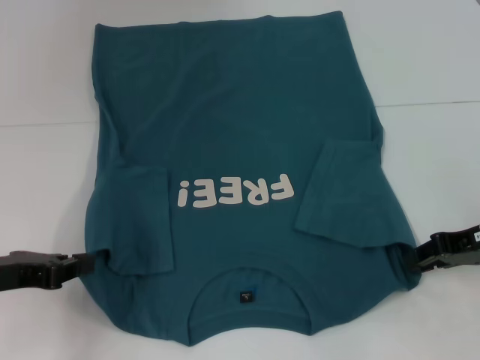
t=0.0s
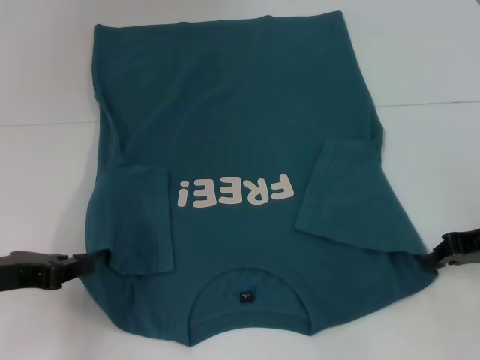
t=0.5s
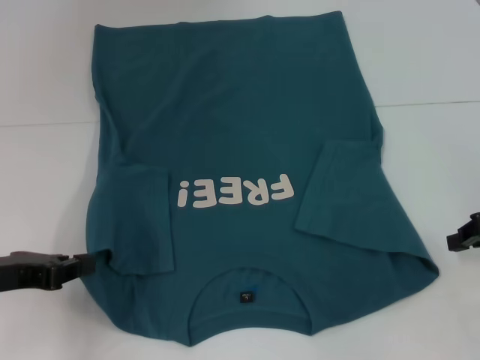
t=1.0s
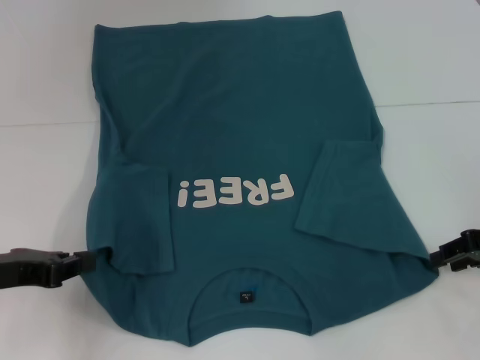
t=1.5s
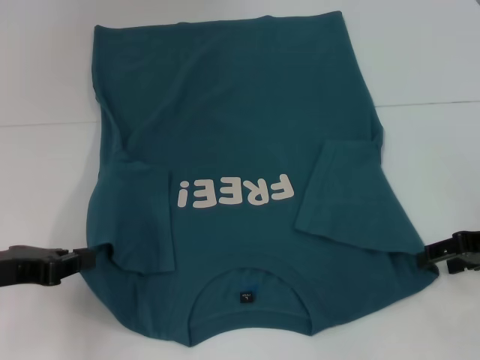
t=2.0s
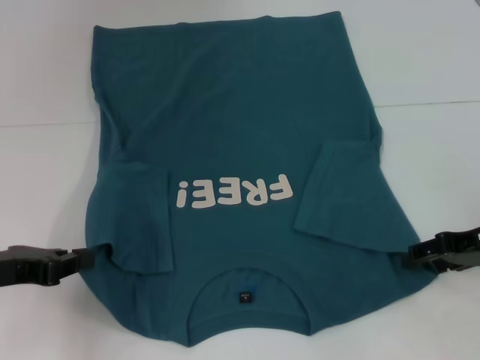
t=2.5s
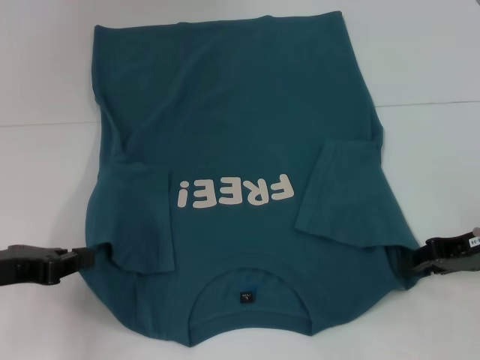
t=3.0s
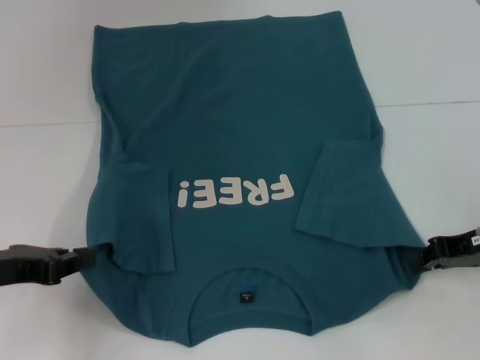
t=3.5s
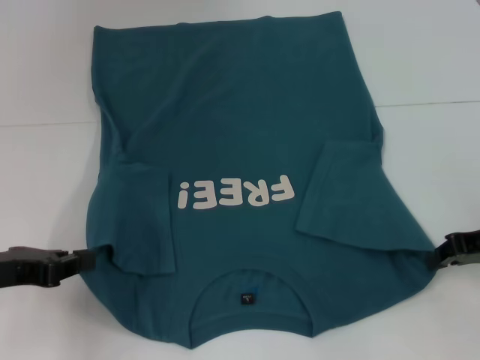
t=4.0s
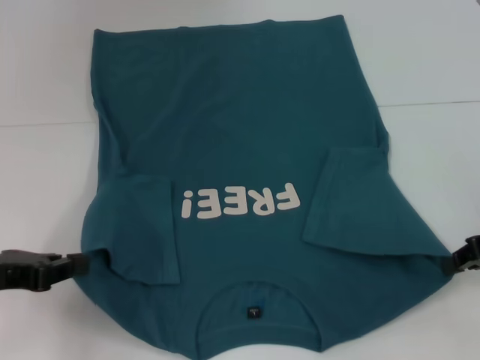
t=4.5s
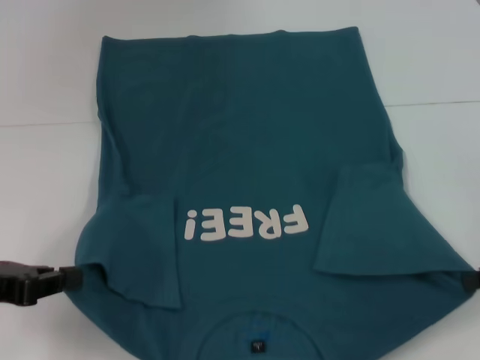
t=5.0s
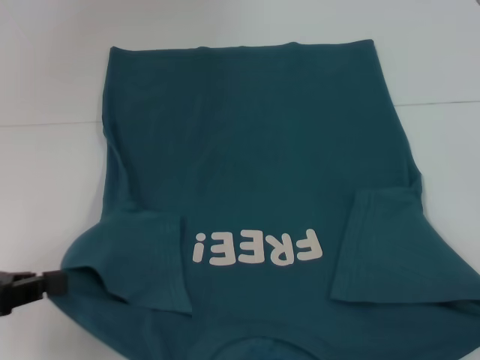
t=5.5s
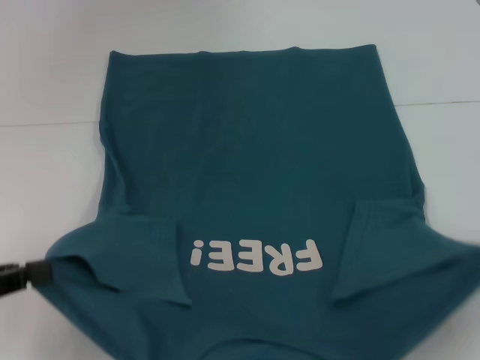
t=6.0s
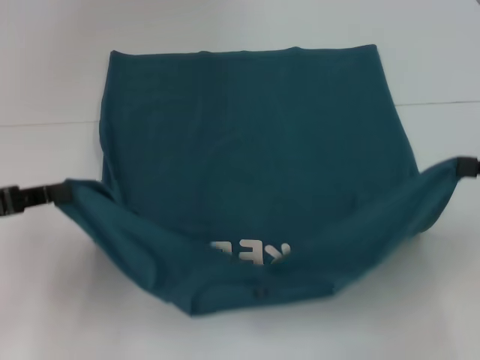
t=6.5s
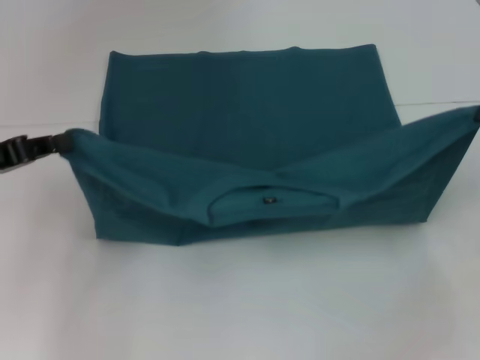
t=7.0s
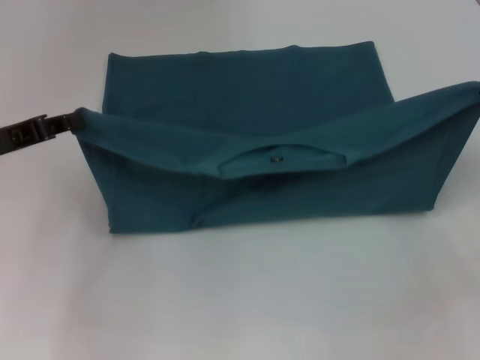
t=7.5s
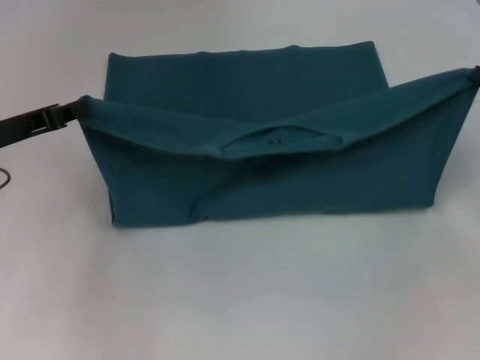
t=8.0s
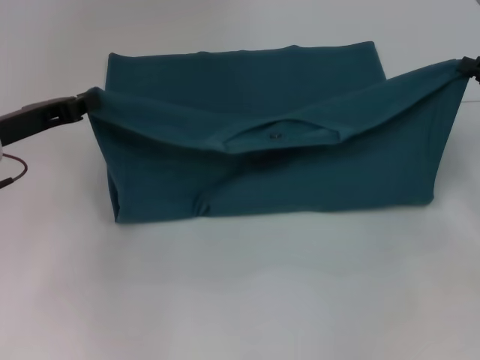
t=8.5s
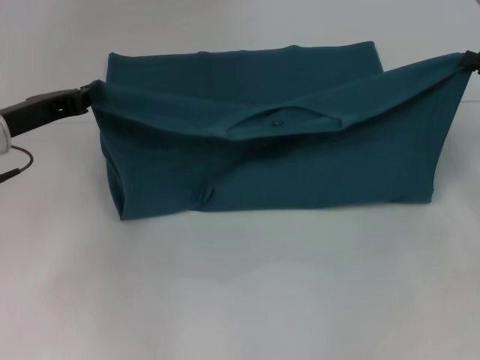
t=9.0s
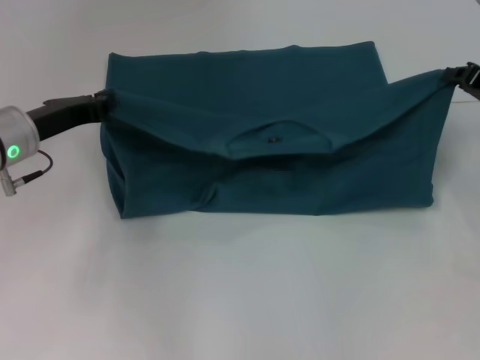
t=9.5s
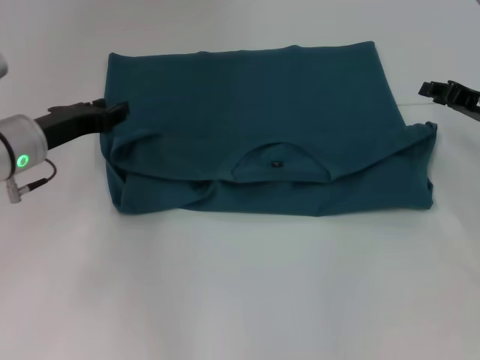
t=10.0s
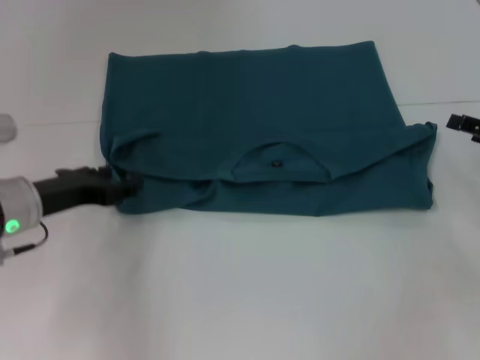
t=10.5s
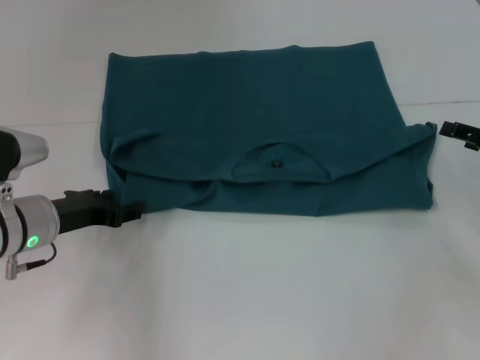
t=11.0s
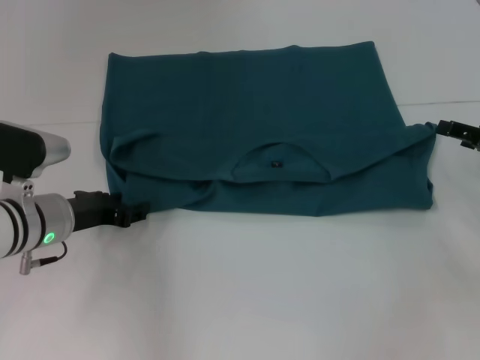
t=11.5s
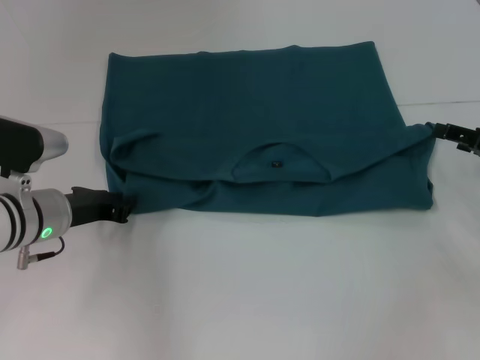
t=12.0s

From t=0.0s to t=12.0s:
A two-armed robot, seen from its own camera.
Step, from t=0.0s to t=4.0s: Grab the bottom right corner with your right hand.
Step, from t=4.5s to t=9.5s: Fold the clothes to the left.
Step, from t=4.5s to t=9.5s: Fold the clothes to the right.
From t=0.0s to t=2.0s: The right gripper closes and opens again.
From t=2.0s to t=4.0s: The right gripper closes its fingers.
From t=4.0s to t=6.0s: The right gripper is displaced backward and to the right by roughly 10 cm. Meanwhile the left gripper shifts about 5 cm backward.
From t=6.0s to t=8.0s: Both grippers travel together forward, approximately 15 cm.
From t=8.0s to t=10.0s: The right gripper shifts by roughly 5 cm. Meanwhile the left gripper travels to the right by about 5 cm.
From t=10.0s to t=12.0s: The left gripper shifts roughly 5 cm downward. Meanwhile the right gripper heads backward, covering some 5 cm, and opens up.

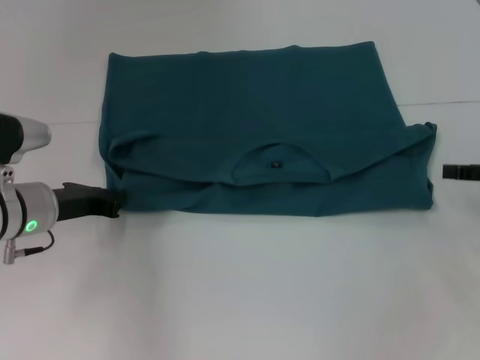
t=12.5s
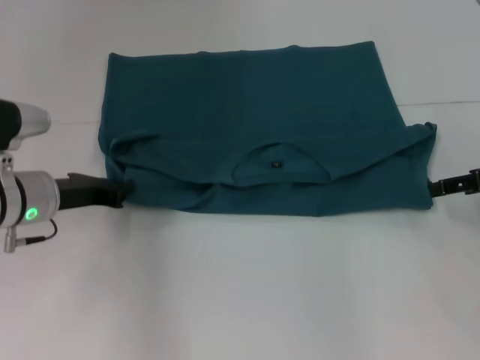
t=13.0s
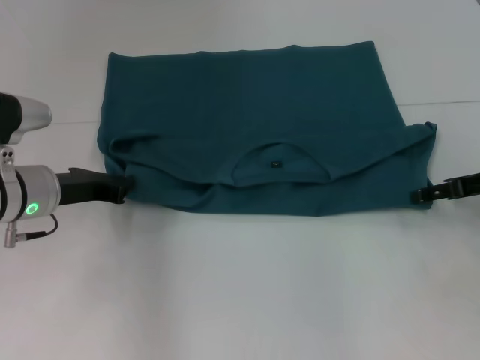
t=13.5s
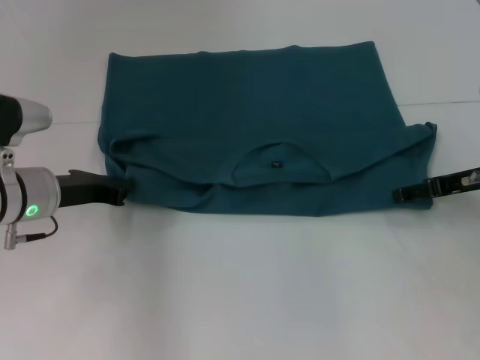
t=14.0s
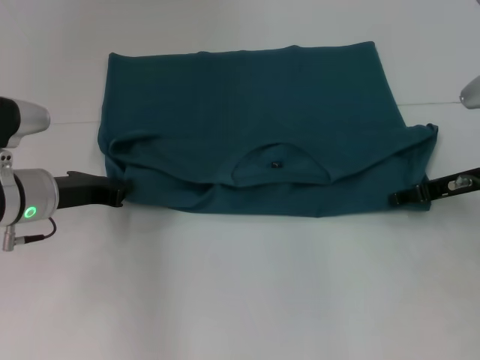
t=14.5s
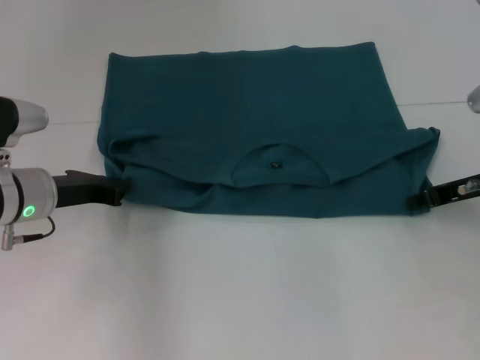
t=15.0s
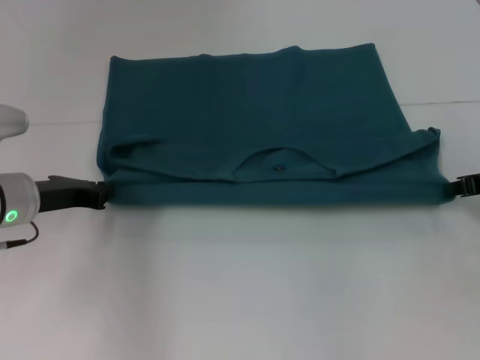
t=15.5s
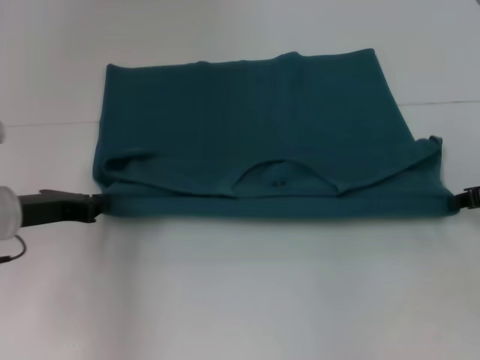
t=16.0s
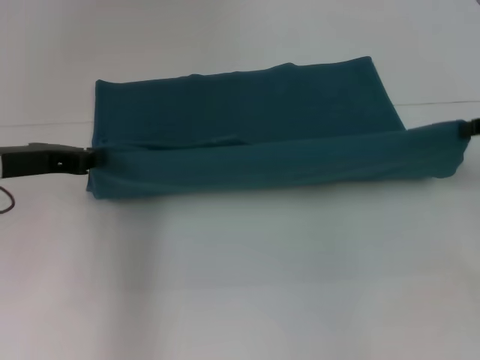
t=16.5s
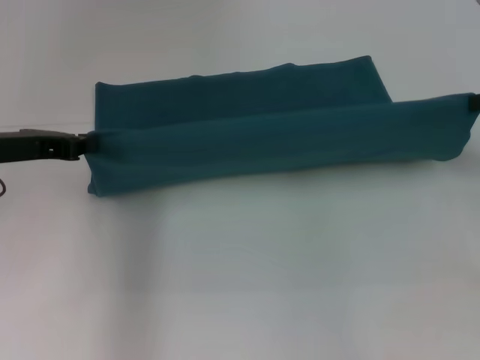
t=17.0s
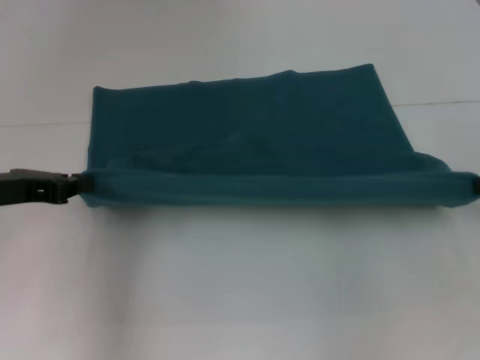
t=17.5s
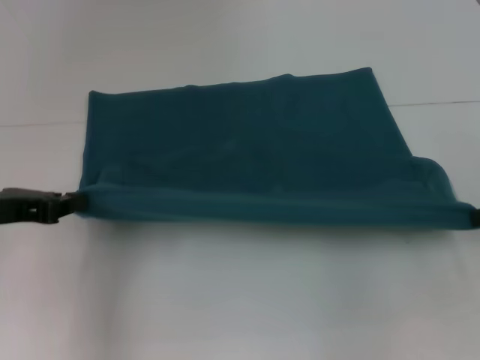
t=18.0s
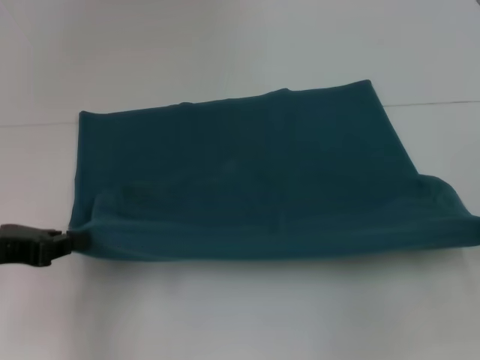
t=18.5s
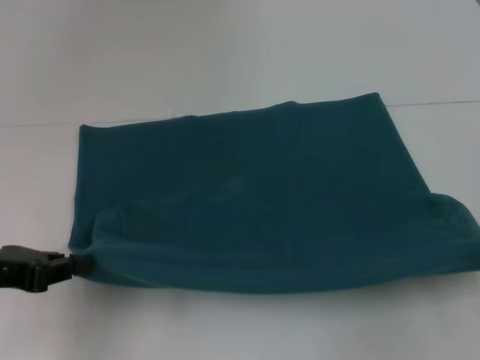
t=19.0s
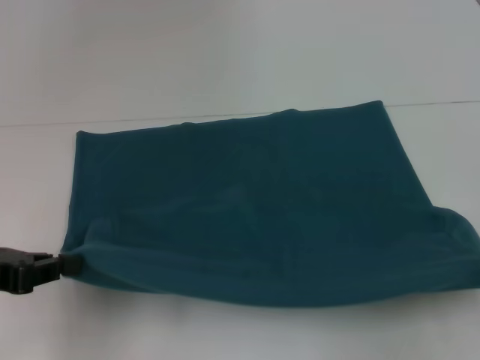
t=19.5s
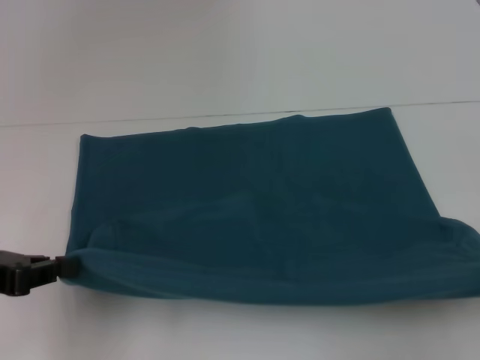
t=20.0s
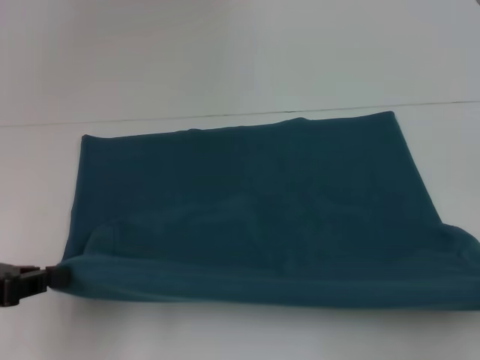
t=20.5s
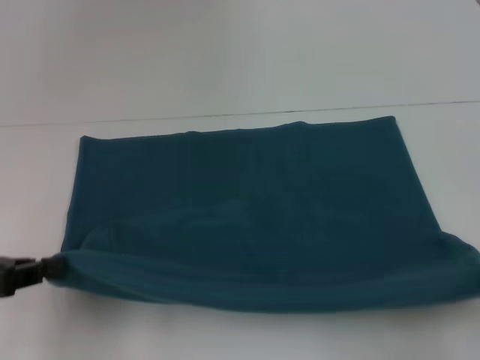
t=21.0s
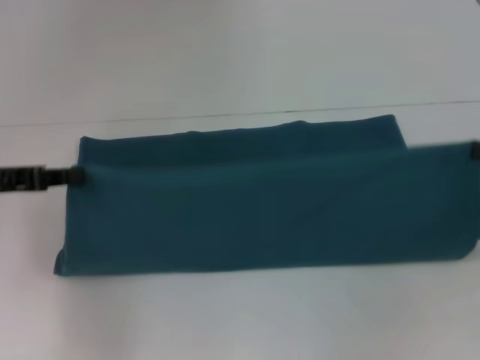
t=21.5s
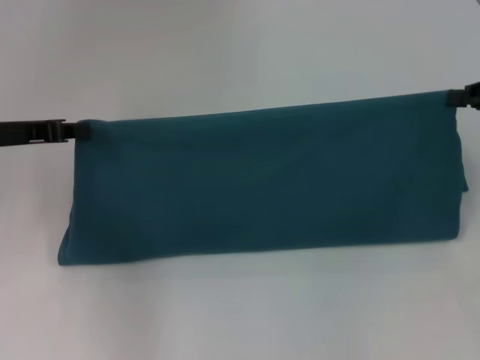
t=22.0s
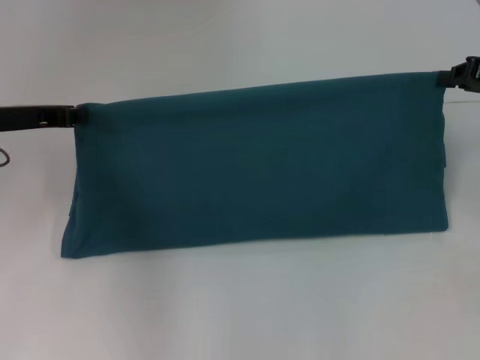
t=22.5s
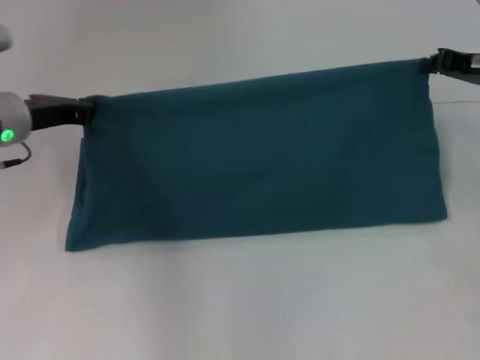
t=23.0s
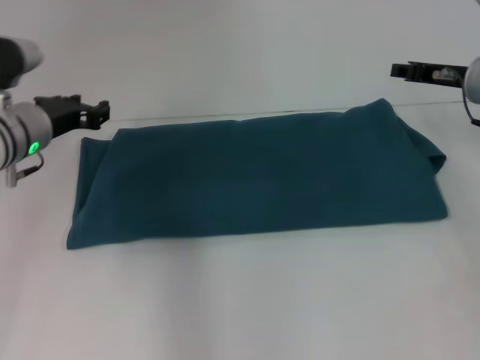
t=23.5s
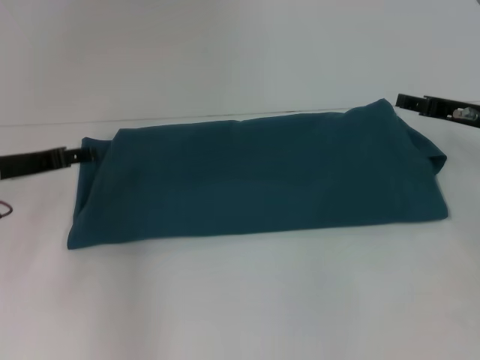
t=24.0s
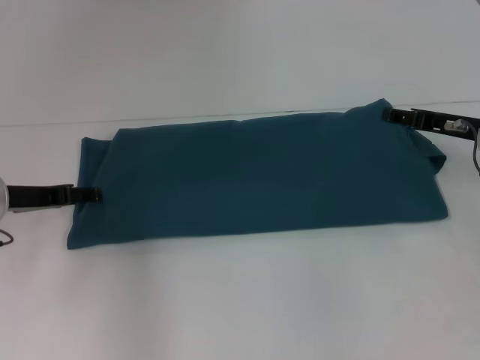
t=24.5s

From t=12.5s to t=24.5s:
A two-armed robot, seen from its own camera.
Step, from t=12.5s to t=20.5s: Pull the clothes with your left hand.
Step, from t=12.5s to t=20.5s: Pull the clothes with your right hand.
Step, from t=21.0s to t=23.0s: Fold the clothes to the left.
Step, from t=21.0s to t=23.0s: Fold the clothes to the right.
From t=12.5s to t=14.5s: The right gripper goes about 10 cm to the left and forward.
From t=14.5s to t=16.5s: The left gripper is displaced upward by approximately 5 cm. Meanwhile the right gripper travels upward and to the right by approximately 10 cm, and closes its fingers.
From t=16.5s to t=18.5s: The grippers both shift backward by about 10 cm.
From t=18.5s to t=20.5s: The right gripper goes about 5 cm backward.
From t=20.5s to t=22.5s: Both grippers move forward, about 20 cm.
From t=22.5s to t=24.5s: The right gripper heads downward and to the left, covering some 10 cm, and opens up; the left gripper goes about 5 cm downward, and opens its fingers.

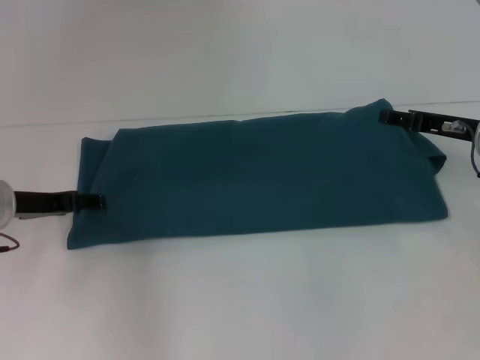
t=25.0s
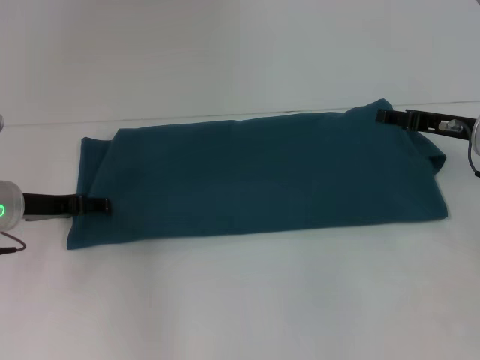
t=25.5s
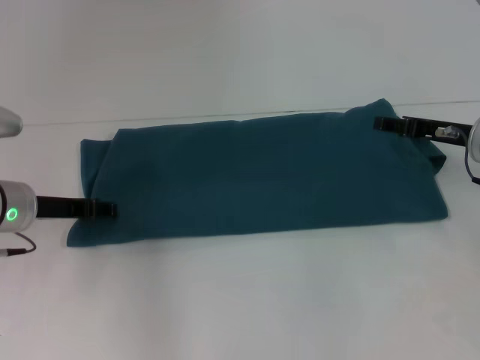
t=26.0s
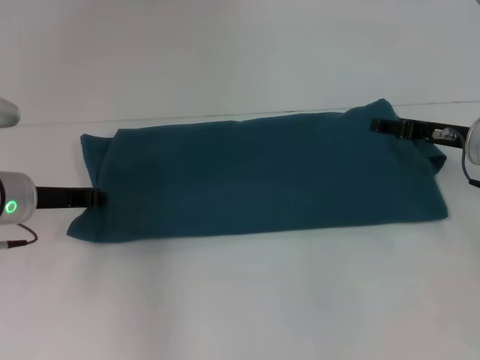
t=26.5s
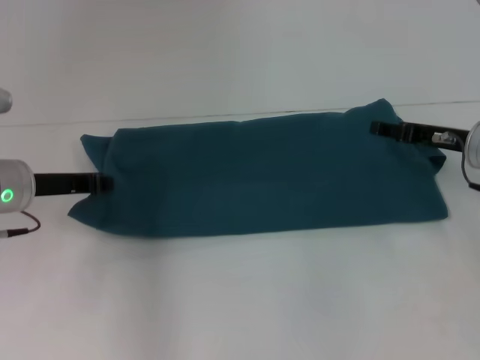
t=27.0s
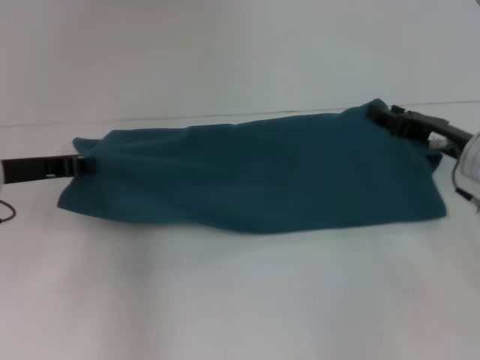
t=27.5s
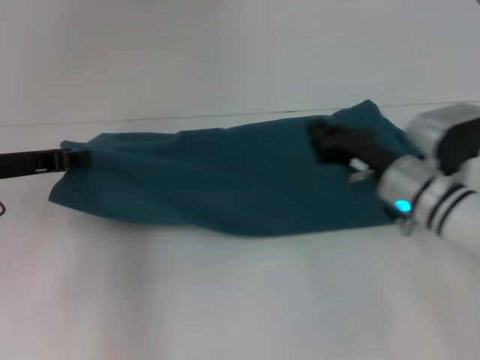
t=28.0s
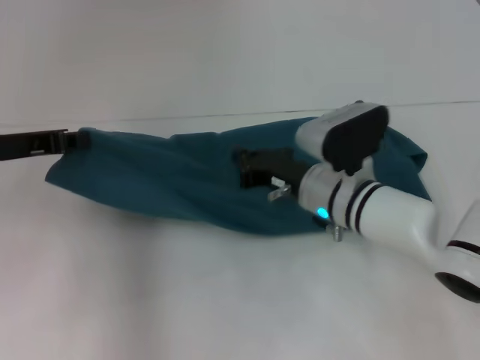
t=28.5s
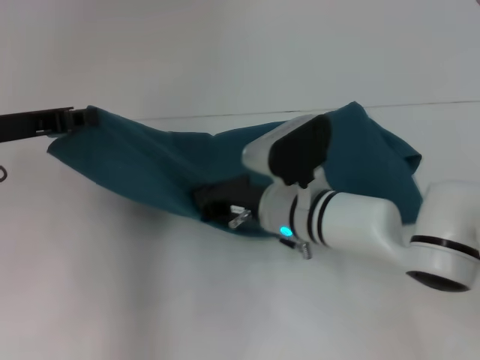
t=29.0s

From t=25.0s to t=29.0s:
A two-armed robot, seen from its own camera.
From t=25.0s to t=27.0s: The left gripper closes.
From t=27.0s to t=29.0s: The left gripper heads upward, covering about 10 cm. Meanwhile the right gripper travels to the left by about 20 cm, and closes its fingers.